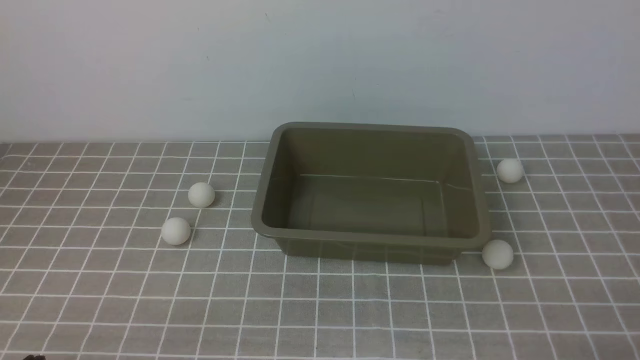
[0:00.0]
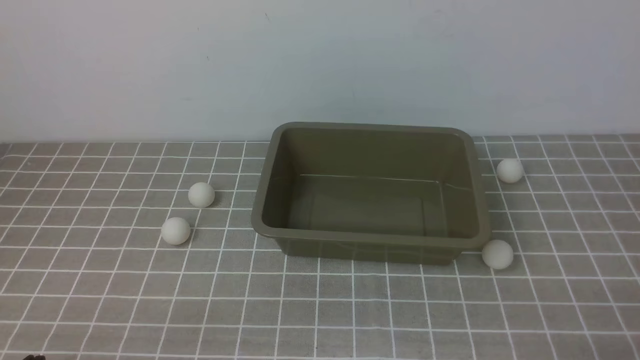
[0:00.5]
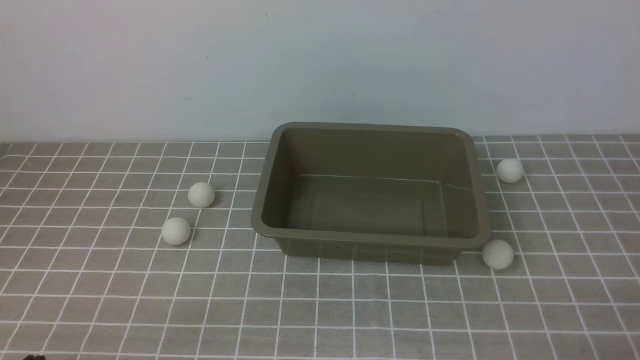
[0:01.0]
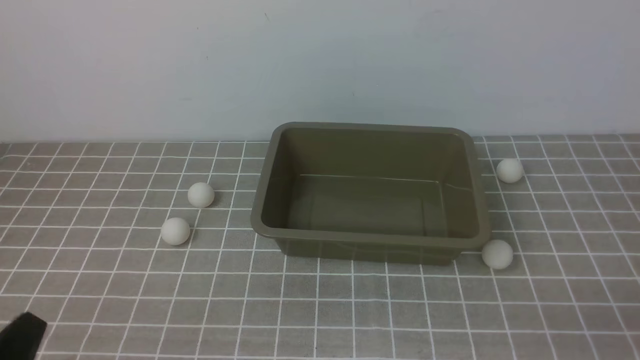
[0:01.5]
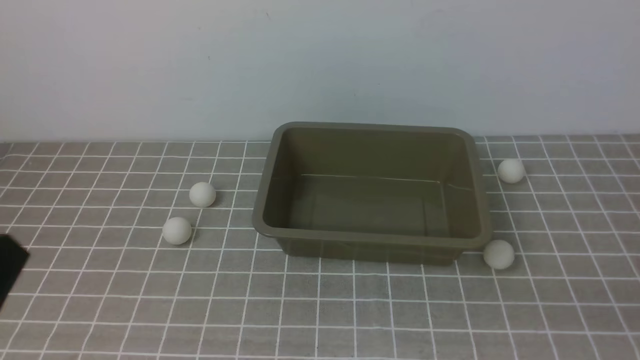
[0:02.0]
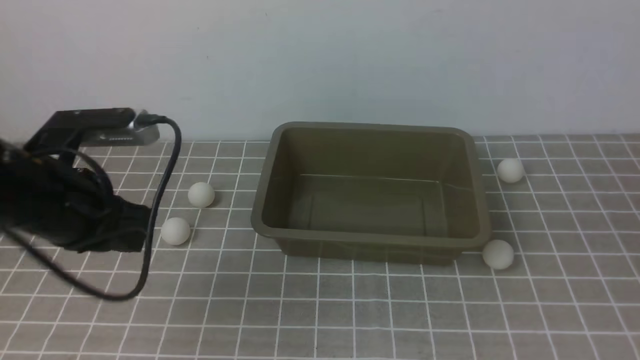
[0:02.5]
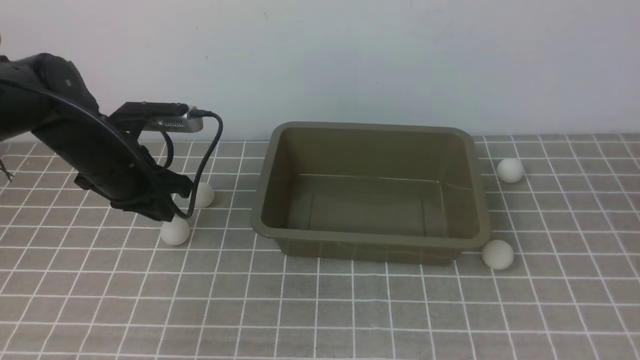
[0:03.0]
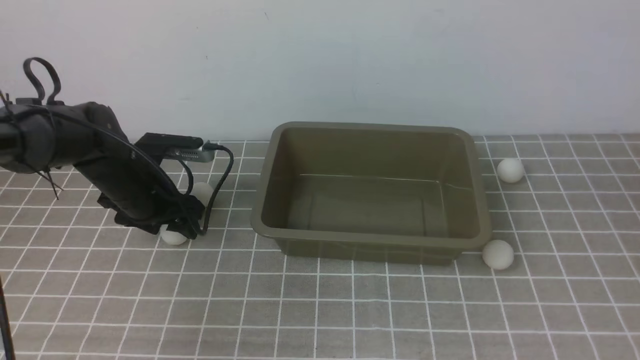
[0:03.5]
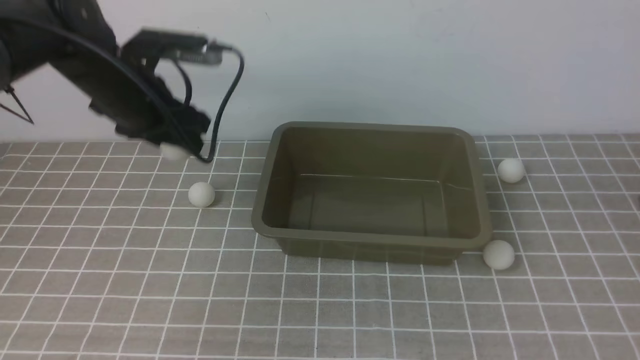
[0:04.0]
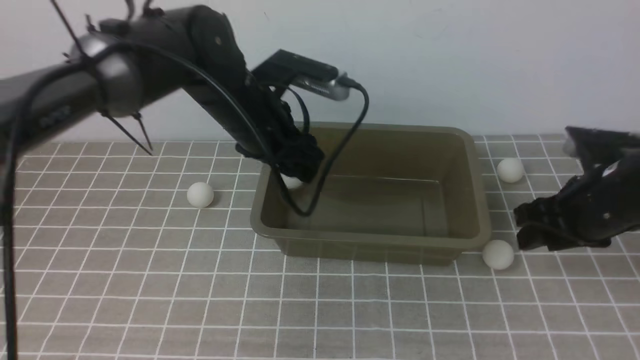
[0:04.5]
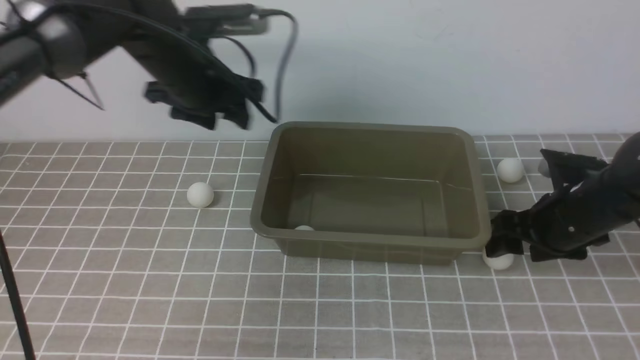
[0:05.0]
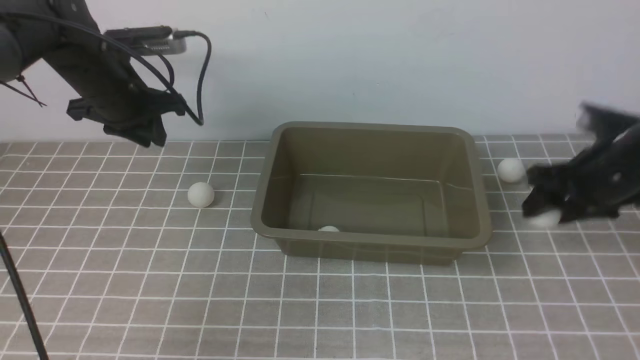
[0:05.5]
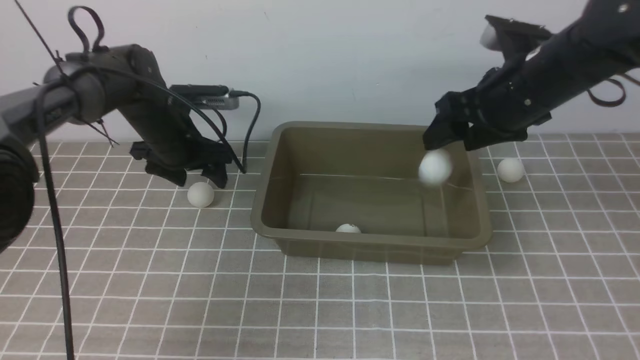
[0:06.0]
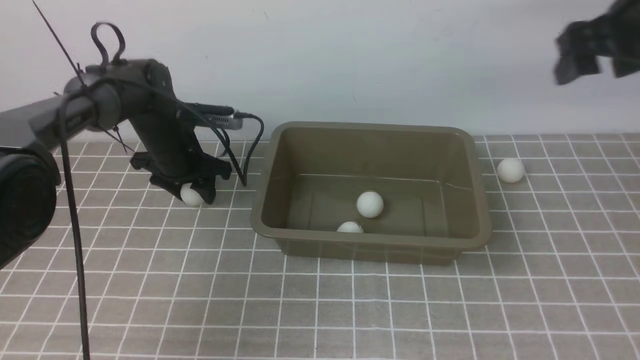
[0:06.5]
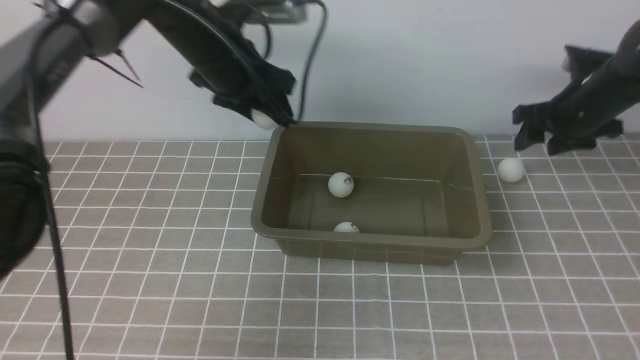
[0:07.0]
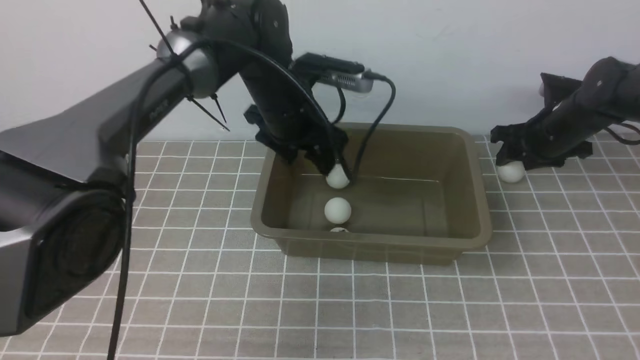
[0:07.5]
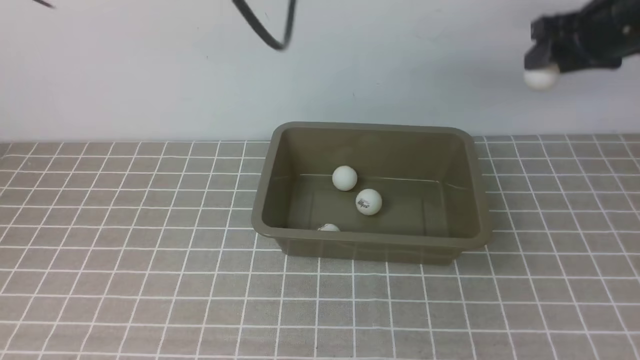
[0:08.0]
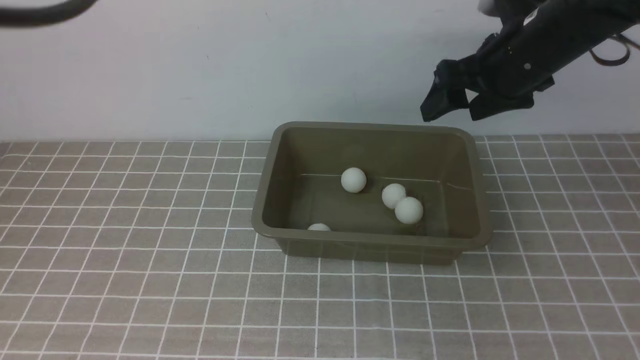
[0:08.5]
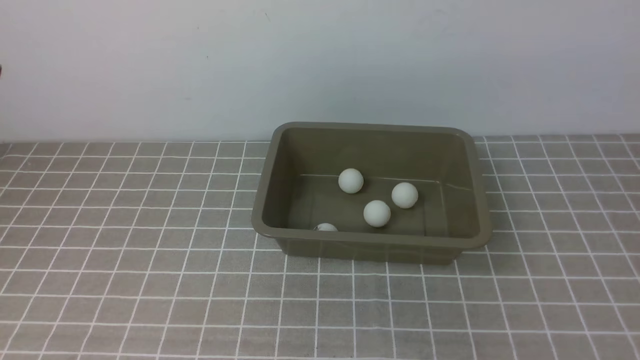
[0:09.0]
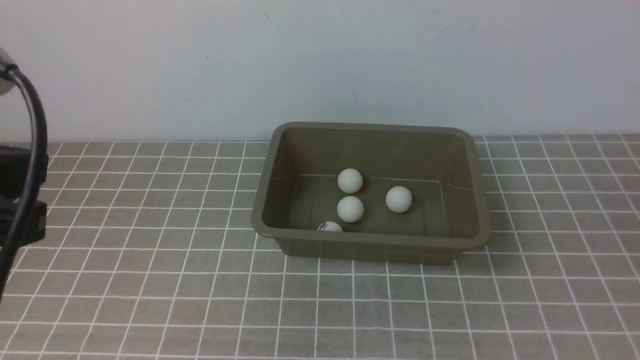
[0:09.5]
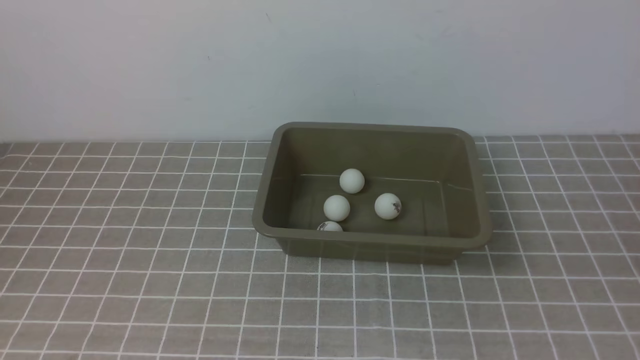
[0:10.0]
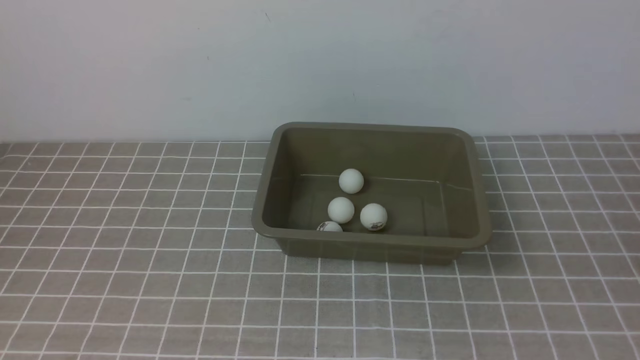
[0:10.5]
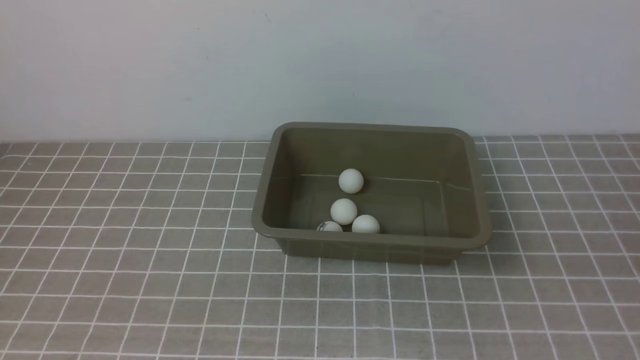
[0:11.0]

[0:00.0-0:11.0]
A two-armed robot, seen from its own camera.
Step, 0:00.0 to 0:03.5: use the left arm to clamp the table tennis ball closest to it.
Step, 0:04.0 to 0:04.5: use the left arm to put the table tennis ball into the box.
Step, 0:05.0 to 0:05.5: use the right arm to clamp the table tennis ball closest to it.
Step, 0:07.0 to 0:07.5: use the left arm to put the table tennis ball into the box.
0:02.0 to 0:03.5: The left gripper travels forward by roughly 35 cm, and opens up. The right gripper travels upward and forward by approximately 20 cm.
0:03.5 to 0:05.5: The left gripper heads upward and forward, covering approximately 10 cm, moves approximately 15 cm to the right and comes back, and closes up; the right gripper is displaced forward and downward by some 25 cm, and opens.
0:05.5 to 0:07.5: The right gripper travels forward by some 15 cm, and moves roughly 15 cm upward and comes back. The left gripper shifts about 20 cm to the right, and opens its fingers.
0:07.5 to 0:09.0: The right gripper is displaced upward and backward by approximately 40 cm, and closes up; the left gripper shifts about 40 cm backward, upward and to the left, and closes its fingers.
0:09.0 to 0:11.0: The left gripper goes approximately 20 cm downward and backward; the right gripper goes about 25 cm backward and downward.
